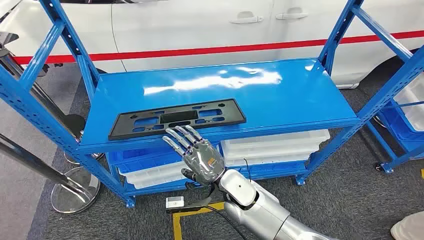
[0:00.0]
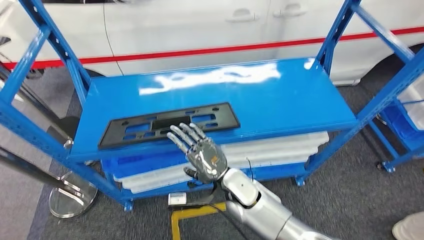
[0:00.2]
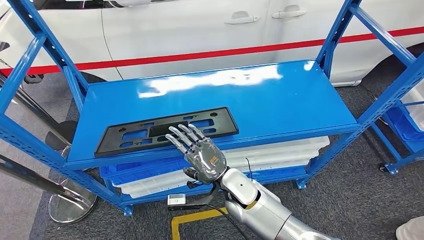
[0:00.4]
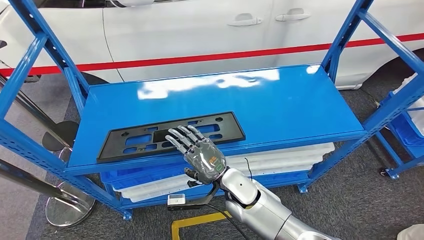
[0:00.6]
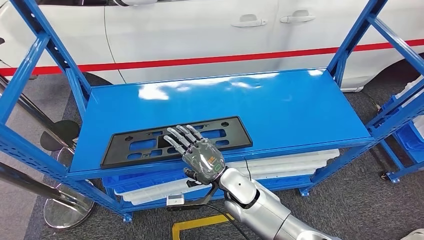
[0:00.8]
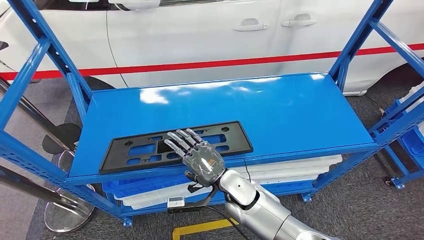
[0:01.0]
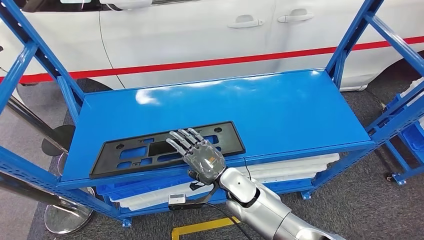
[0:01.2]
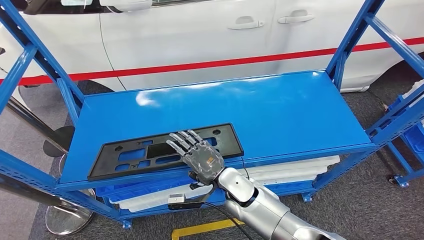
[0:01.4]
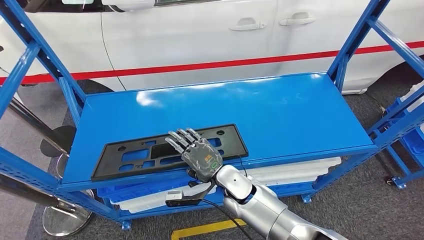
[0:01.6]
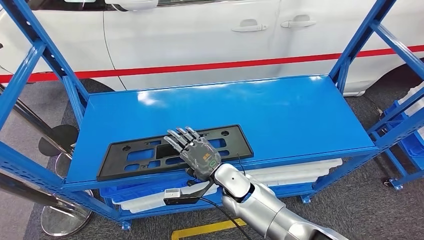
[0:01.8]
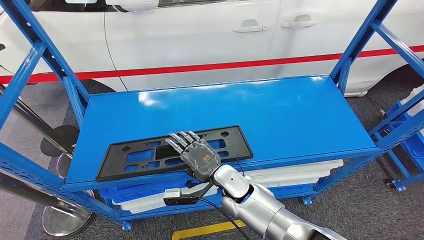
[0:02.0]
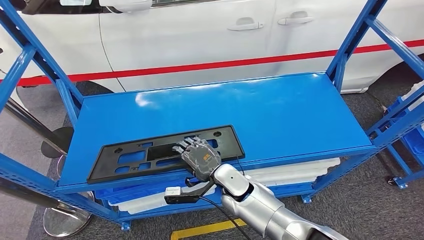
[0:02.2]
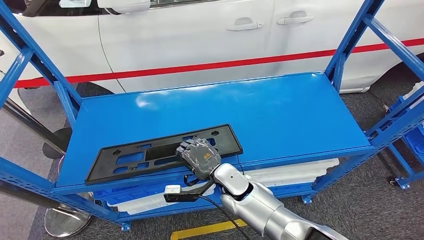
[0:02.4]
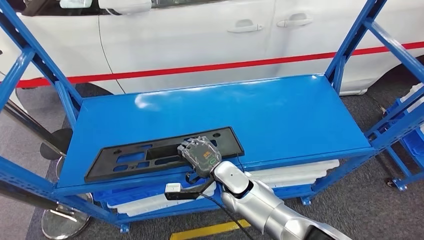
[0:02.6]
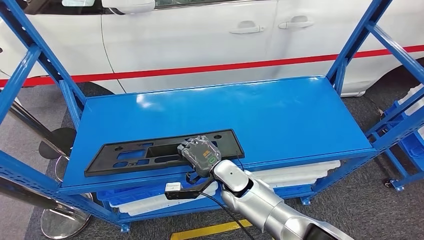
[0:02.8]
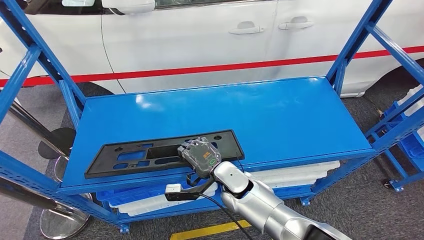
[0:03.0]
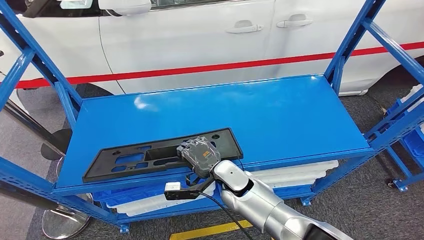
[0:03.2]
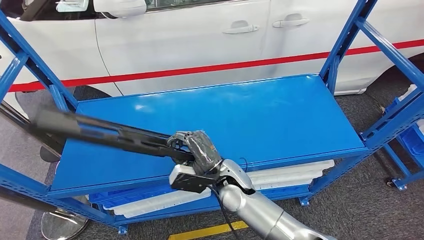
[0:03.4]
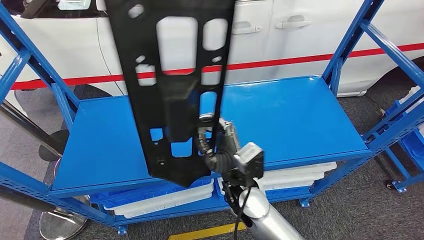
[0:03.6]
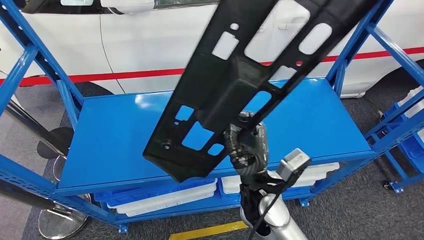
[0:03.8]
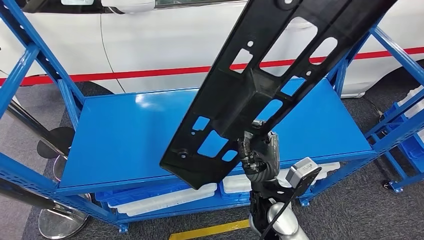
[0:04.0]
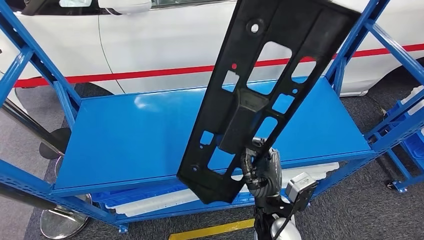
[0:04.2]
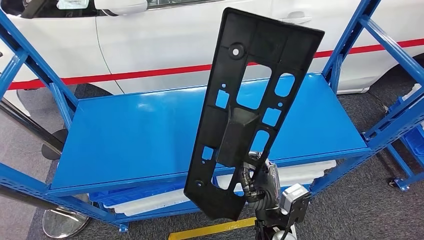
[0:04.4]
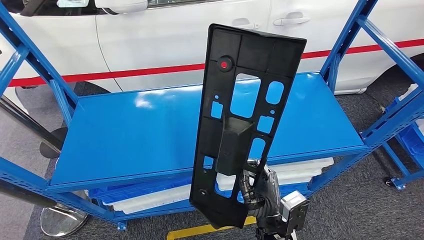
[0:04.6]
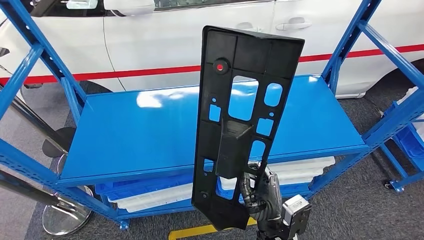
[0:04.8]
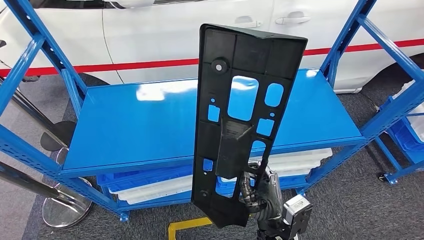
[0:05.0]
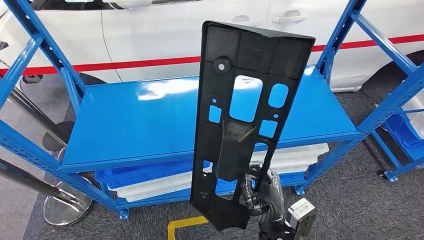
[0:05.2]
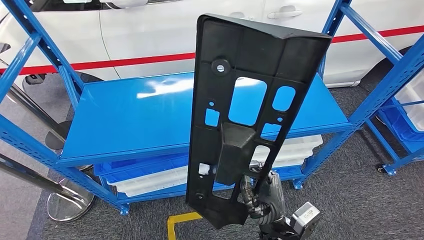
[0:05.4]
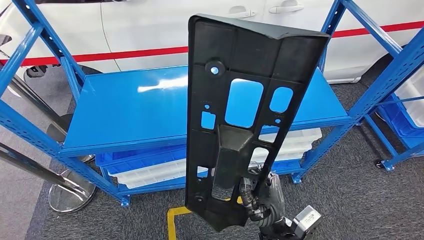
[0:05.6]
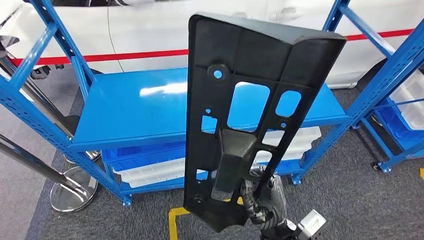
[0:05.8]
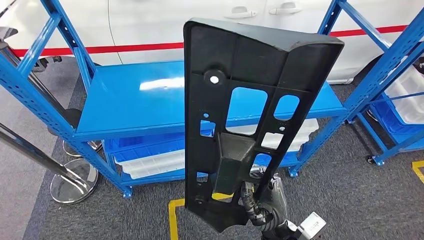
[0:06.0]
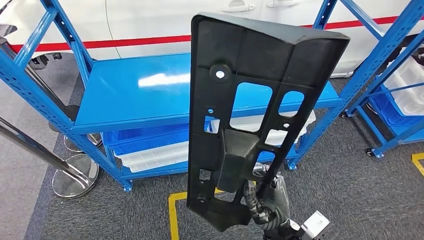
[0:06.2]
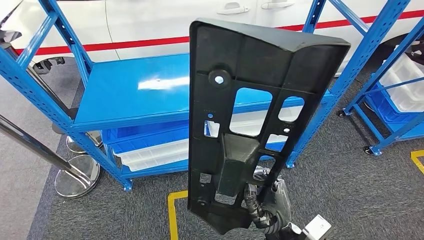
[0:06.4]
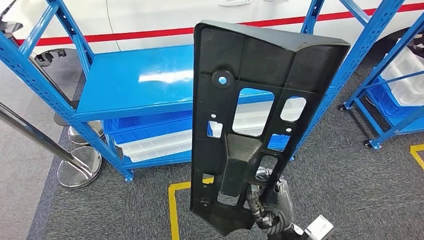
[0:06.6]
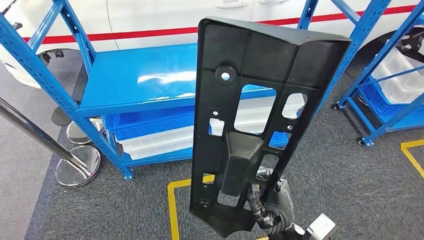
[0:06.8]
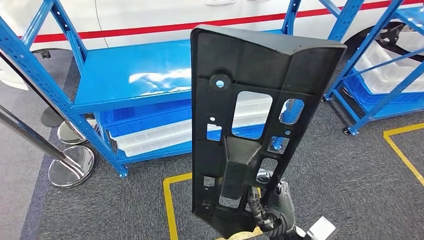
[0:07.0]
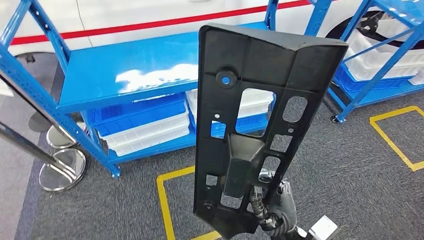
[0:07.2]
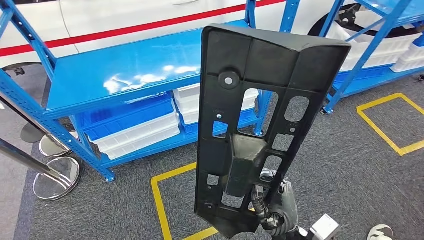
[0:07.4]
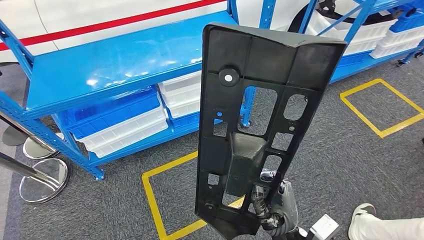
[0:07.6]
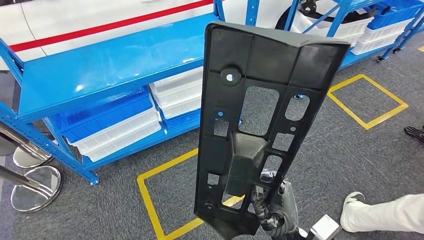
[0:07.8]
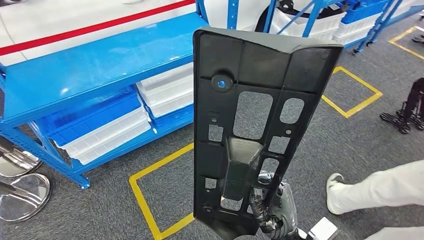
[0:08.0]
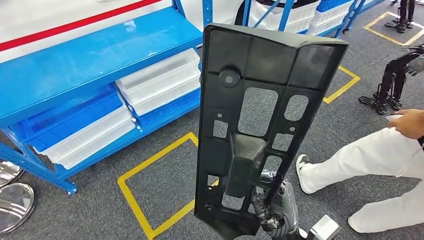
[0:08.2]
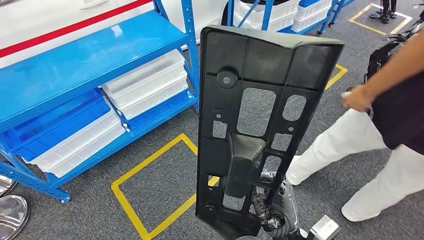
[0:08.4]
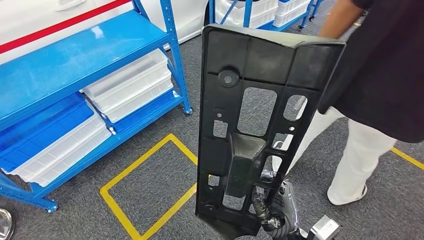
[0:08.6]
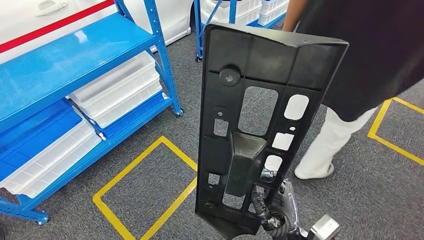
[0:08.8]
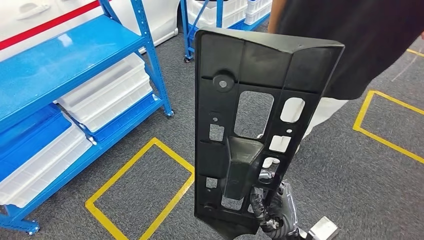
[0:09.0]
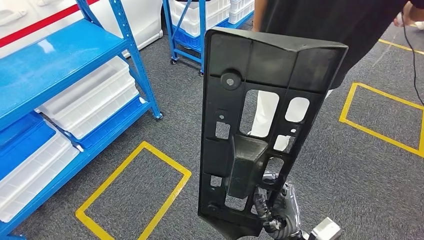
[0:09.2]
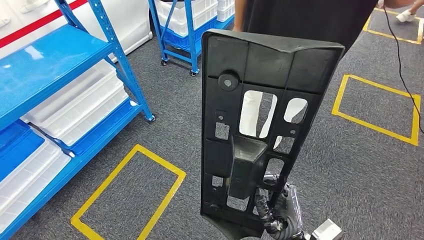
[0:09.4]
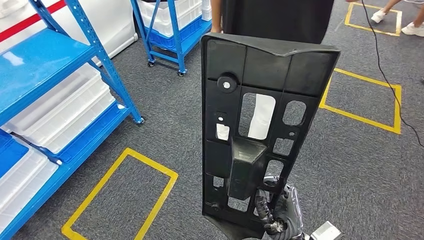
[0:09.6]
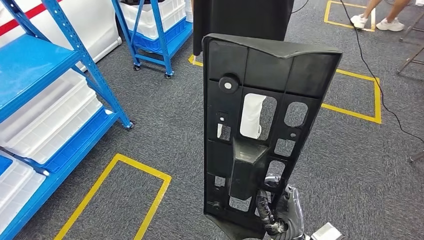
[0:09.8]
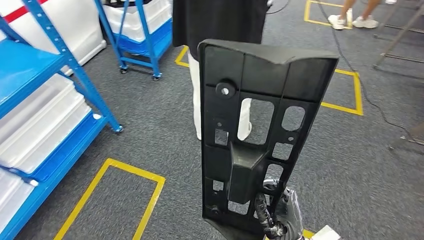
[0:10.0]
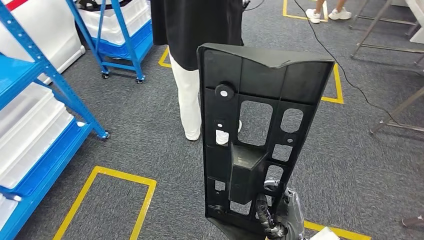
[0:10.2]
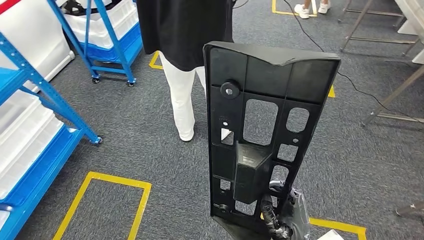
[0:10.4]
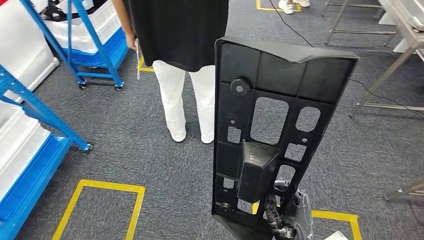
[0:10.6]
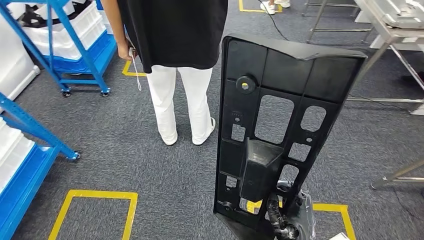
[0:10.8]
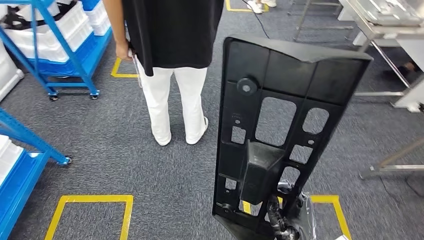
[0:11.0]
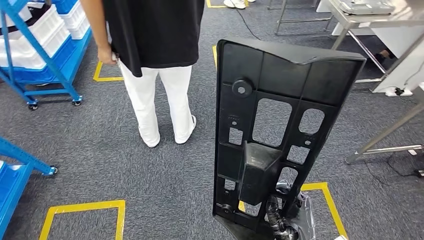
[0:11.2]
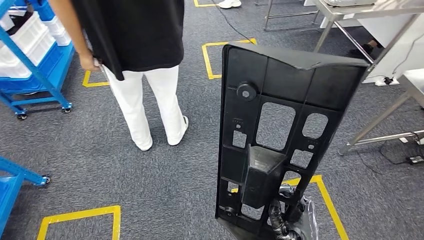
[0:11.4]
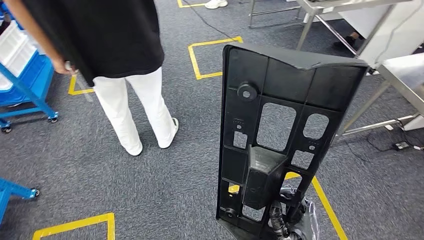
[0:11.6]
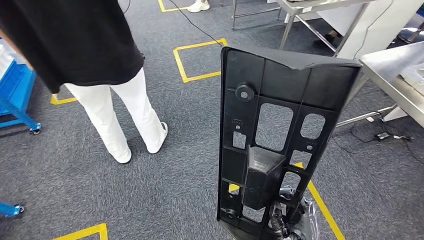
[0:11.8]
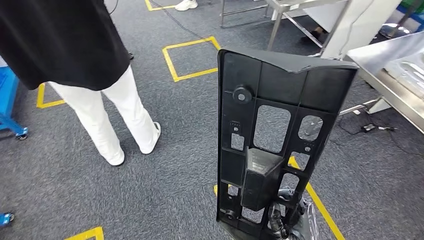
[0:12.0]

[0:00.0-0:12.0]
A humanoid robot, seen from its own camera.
Step, 0:00.0 to 0:04.0: Pick up the large material from the shelf.

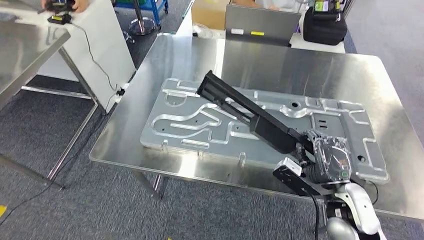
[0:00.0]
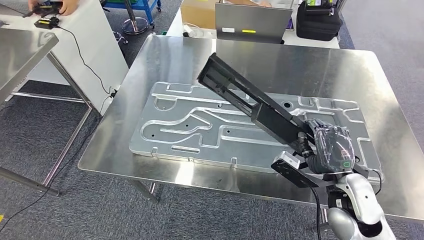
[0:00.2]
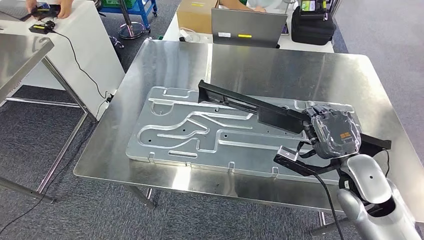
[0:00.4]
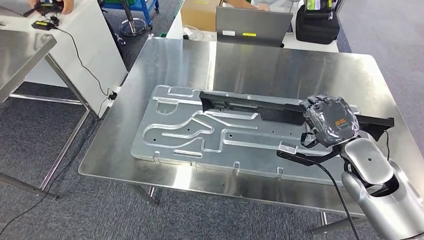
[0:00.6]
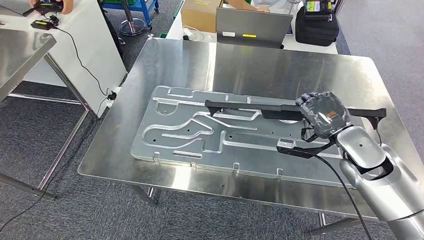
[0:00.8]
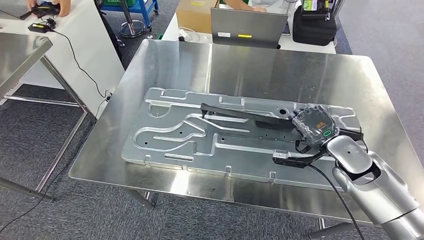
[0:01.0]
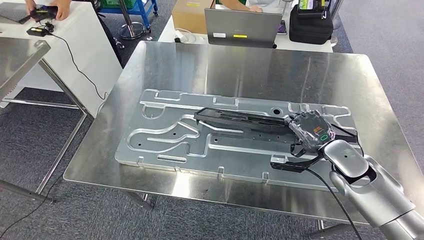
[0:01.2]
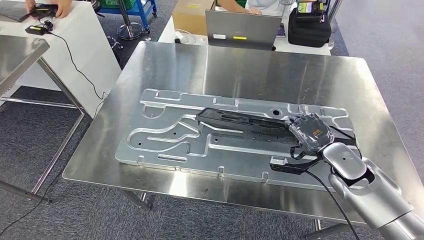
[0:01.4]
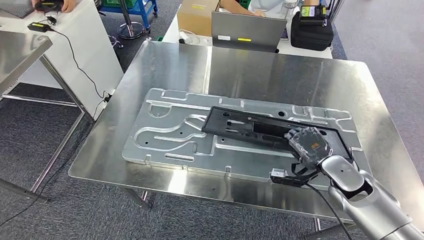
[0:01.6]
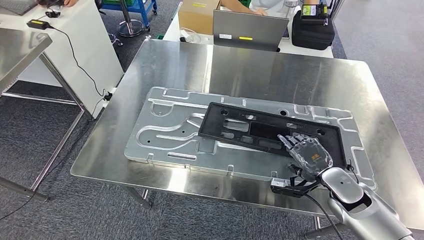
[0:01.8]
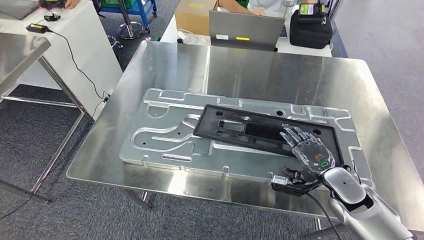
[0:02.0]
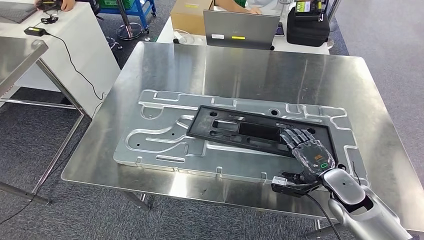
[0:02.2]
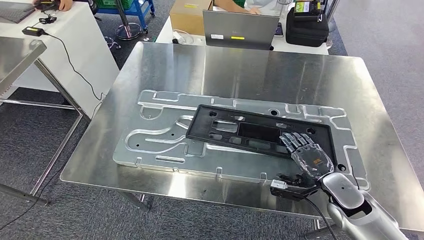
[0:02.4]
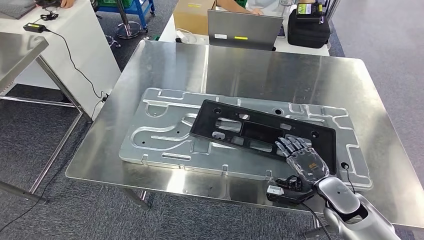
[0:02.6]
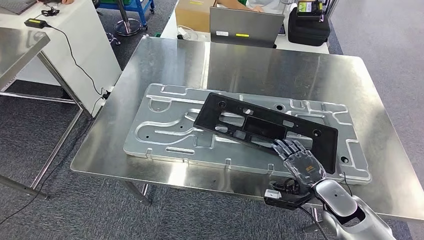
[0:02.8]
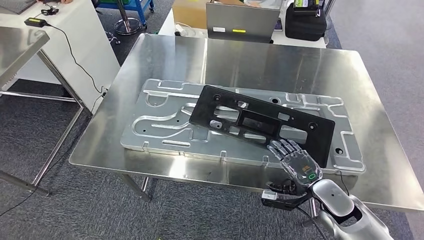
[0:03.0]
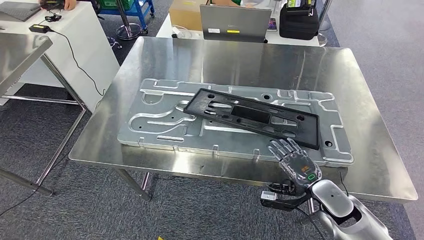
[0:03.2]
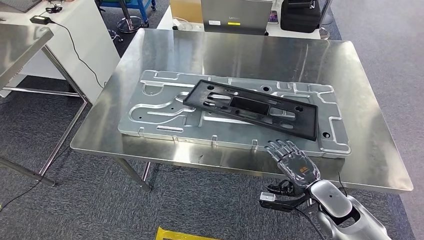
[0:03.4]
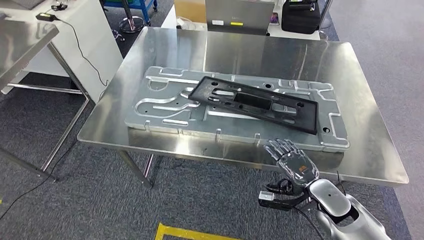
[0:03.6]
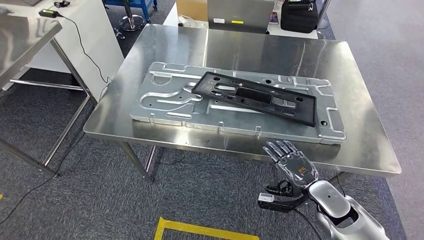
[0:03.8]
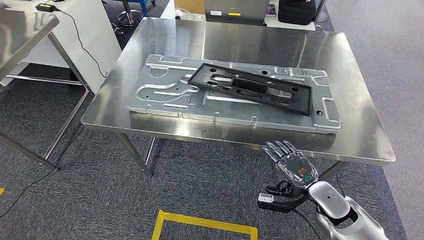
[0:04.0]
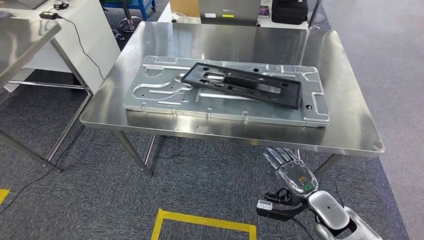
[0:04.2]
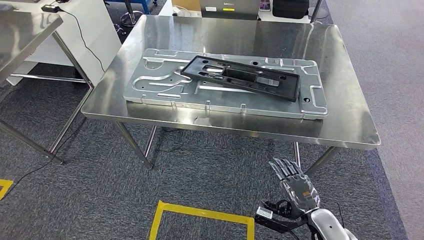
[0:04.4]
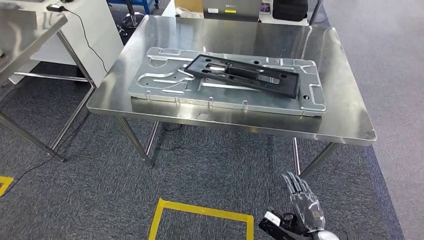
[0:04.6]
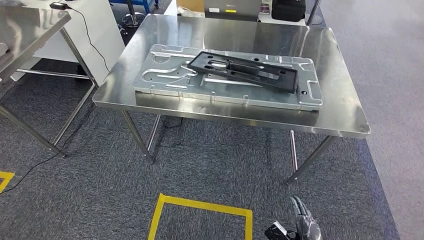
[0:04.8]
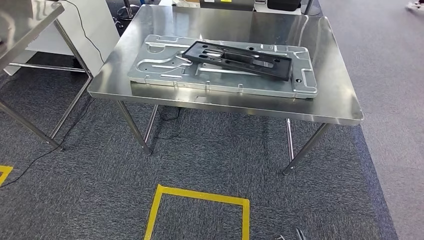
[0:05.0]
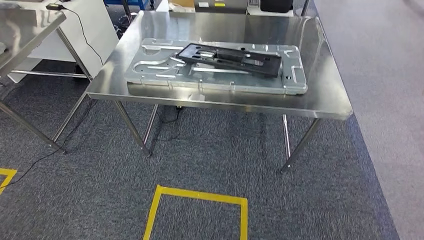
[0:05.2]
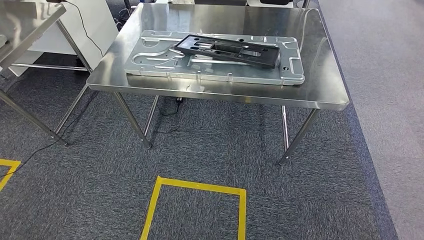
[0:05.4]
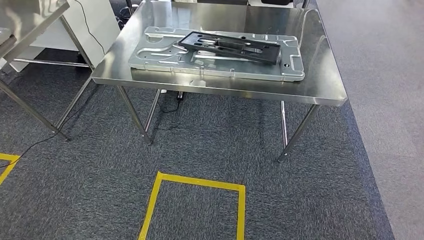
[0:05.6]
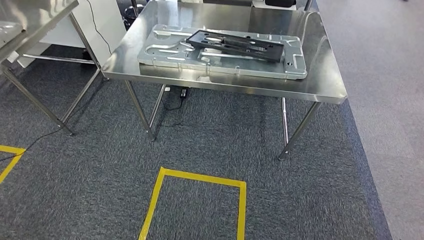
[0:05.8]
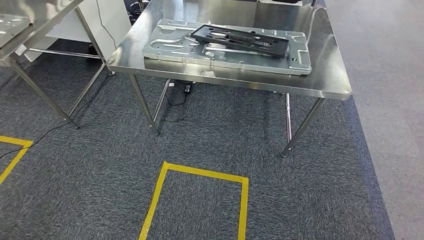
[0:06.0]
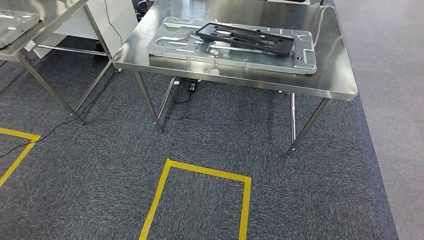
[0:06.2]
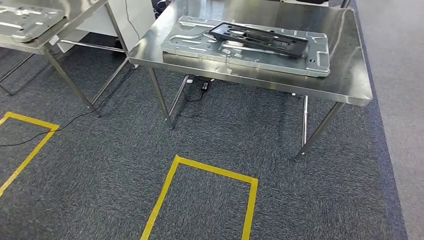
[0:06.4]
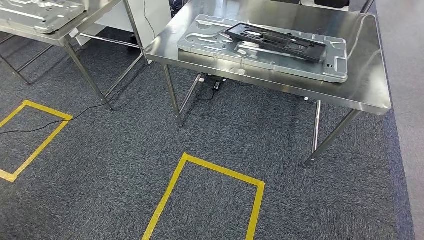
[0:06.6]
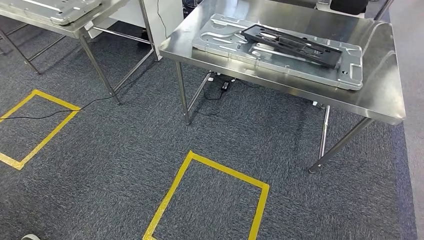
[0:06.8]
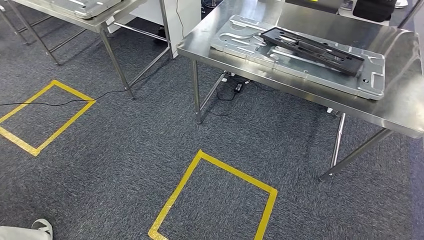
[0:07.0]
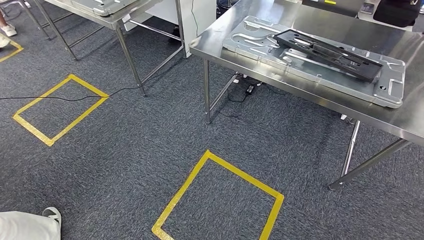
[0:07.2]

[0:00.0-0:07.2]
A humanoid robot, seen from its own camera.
Step, 0:01.4 to 0:02.8: Insert the large material into the corresponding slot on the workbench.
